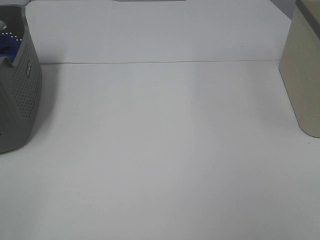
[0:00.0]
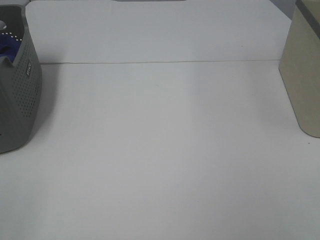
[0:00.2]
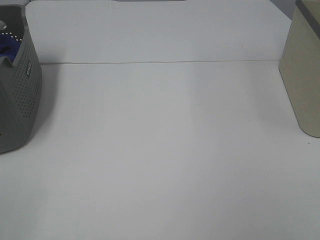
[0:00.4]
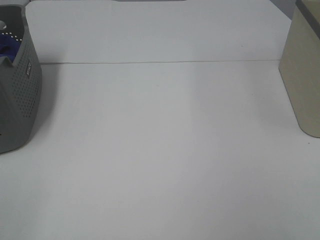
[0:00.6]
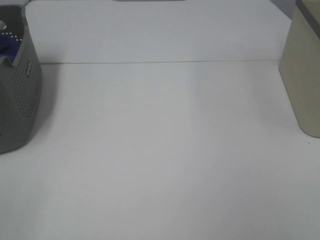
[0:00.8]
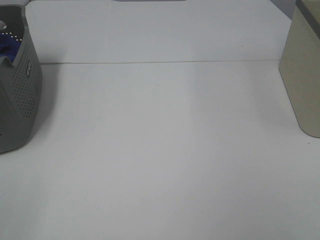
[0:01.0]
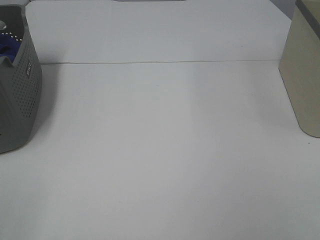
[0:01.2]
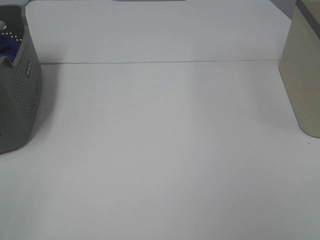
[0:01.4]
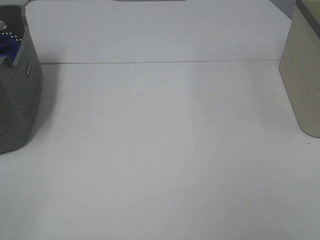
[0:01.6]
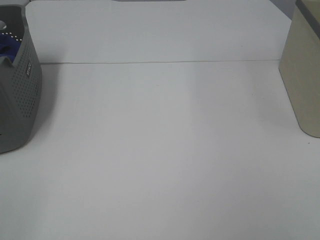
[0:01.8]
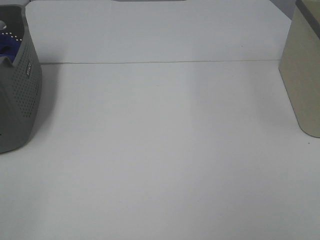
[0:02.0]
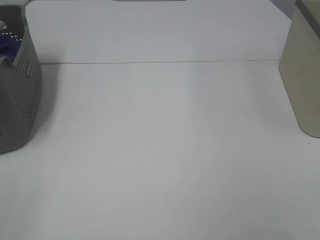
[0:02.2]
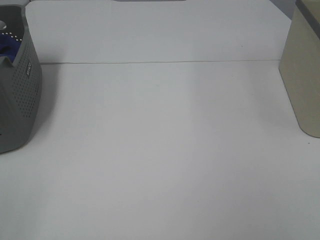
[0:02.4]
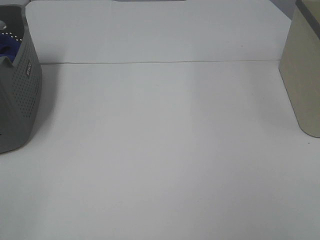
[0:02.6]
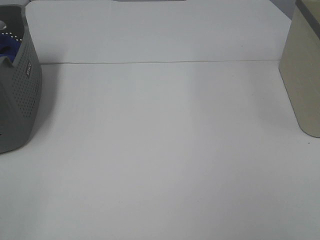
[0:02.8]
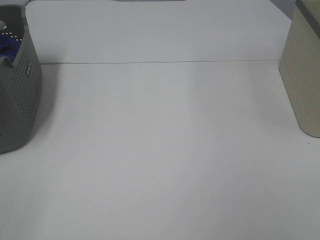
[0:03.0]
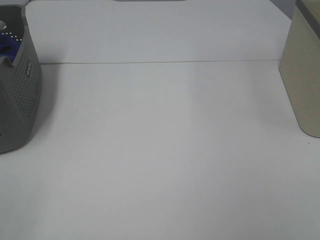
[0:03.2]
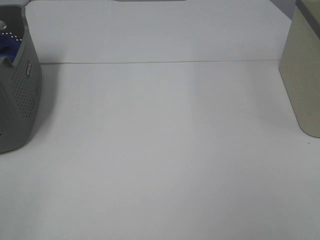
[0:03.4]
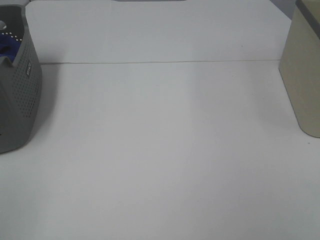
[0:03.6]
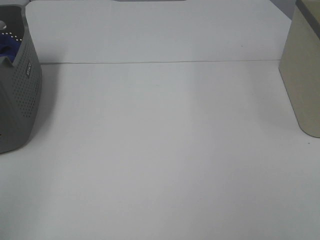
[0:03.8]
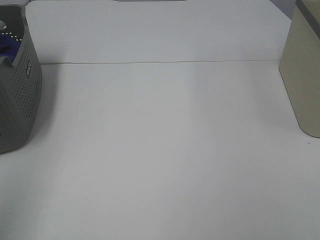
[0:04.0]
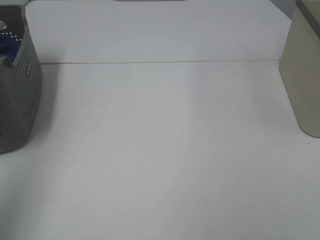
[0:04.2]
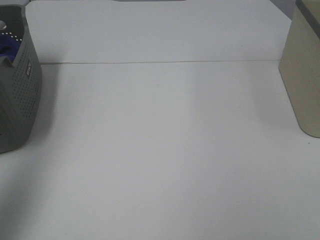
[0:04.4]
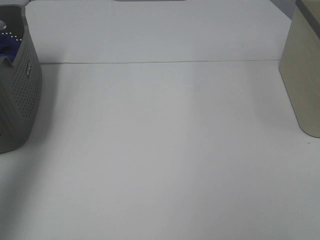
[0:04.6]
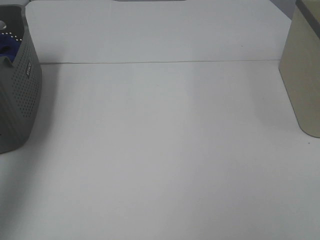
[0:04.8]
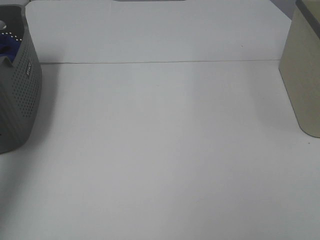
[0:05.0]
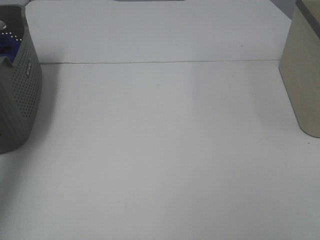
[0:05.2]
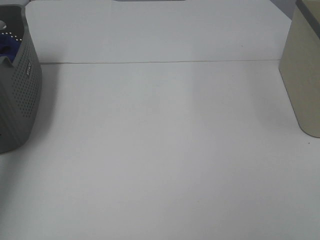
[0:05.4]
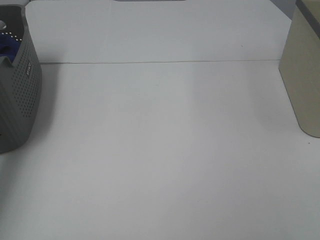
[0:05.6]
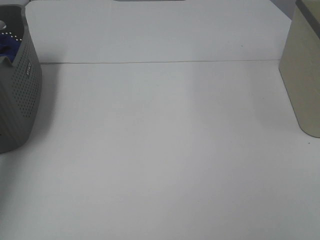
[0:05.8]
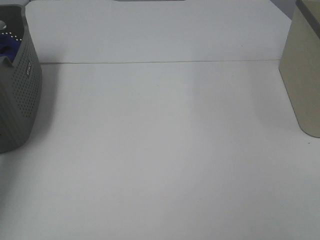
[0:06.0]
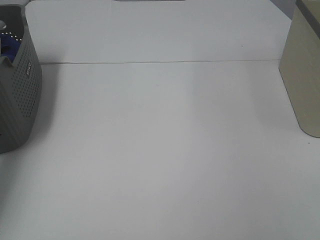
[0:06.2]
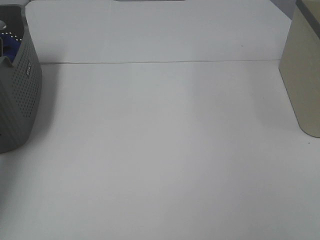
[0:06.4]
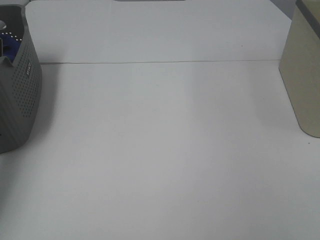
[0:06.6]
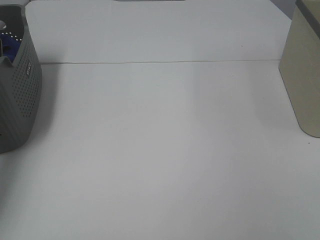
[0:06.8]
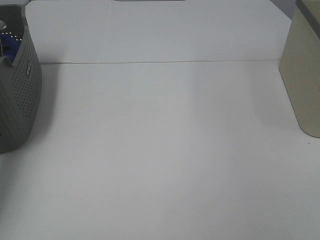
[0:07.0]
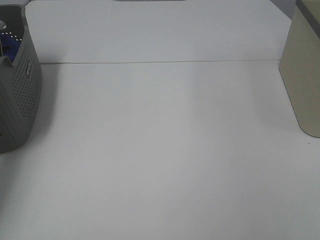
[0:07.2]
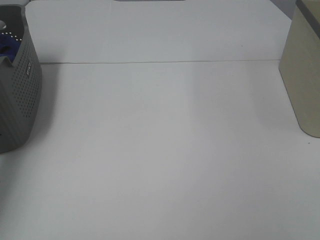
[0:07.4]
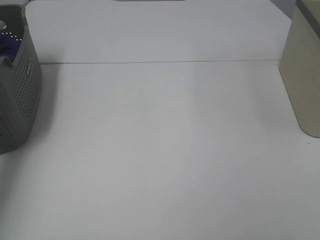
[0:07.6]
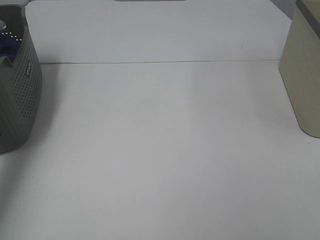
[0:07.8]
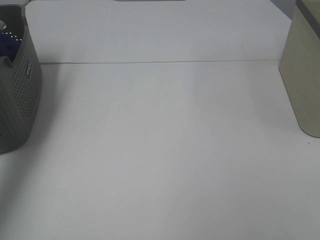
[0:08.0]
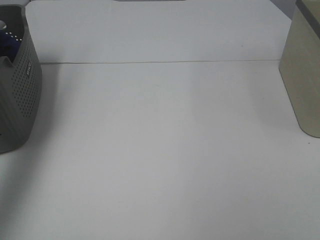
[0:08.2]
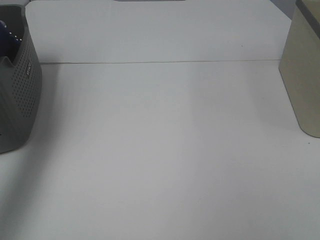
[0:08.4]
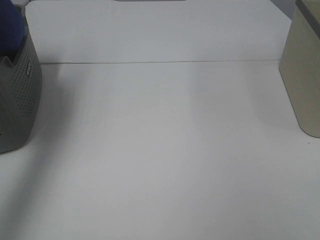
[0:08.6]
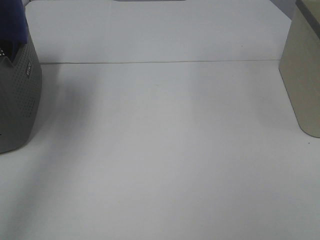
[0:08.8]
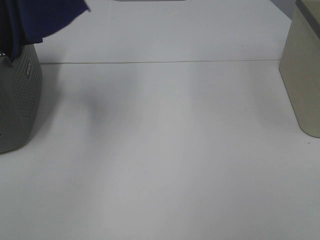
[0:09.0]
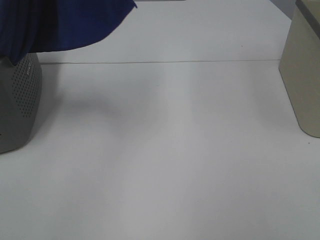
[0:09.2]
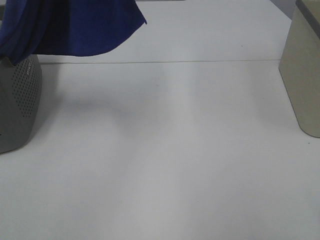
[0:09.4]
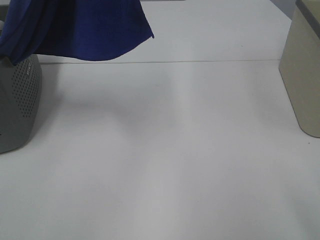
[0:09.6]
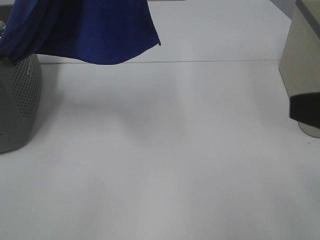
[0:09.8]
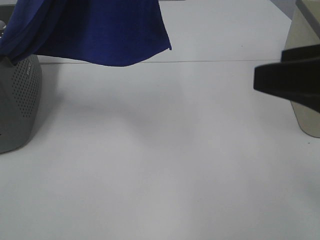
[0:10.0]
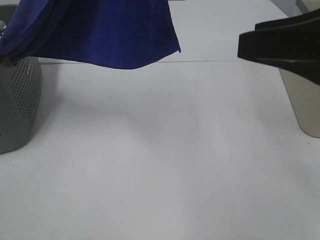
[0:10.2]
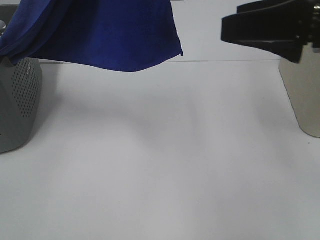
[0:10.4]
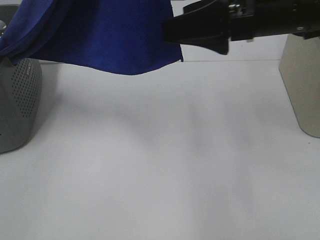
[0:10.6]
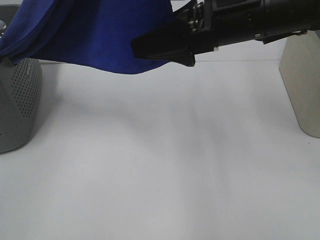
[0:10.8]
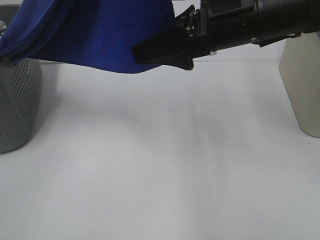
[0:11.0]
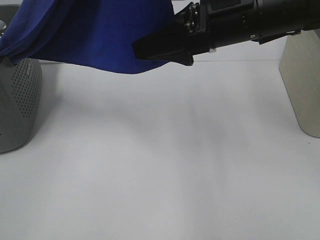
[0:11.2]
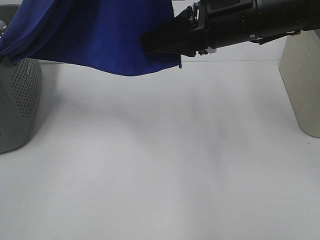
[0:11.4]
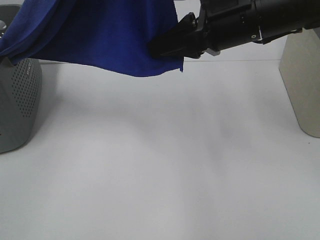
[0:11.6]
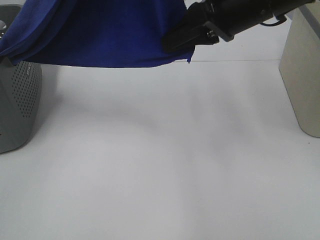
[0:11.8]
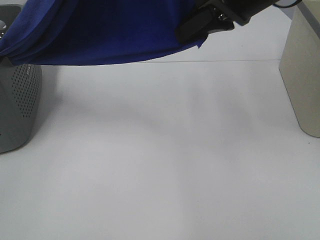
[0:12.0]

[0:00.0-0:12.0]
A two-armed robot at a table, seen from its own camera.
Task of the whole recording: Remove the towel and place it.
Step, 0:08.4 to 0:11.8: Right hand: grab a corner of the blue towel and straighten it.
0:00.0 to 0:03.0: Both grippers stay about where they are.
0:03.0 to 0:04.4: The left gripper travels forward and upward by approximately 25 cm.
0:04.4 to 0:06.0: The left gripper goes some 35 cm forward and downward.
0:07.6 to 0:09.0: The left gripper travels upward, to the right and backward by roughly 35 cm.
0:09.0 to 0:10.4: The left gripper heads to the right, covering about 10 cm. The right gripper moves forward, roughly 25 cm, and opens.
0:10.4 to 0:12.0: The right gripper is displaced forward and to the left by some 10 cm, and closes its fingers.

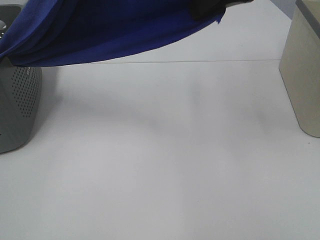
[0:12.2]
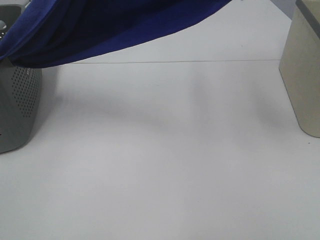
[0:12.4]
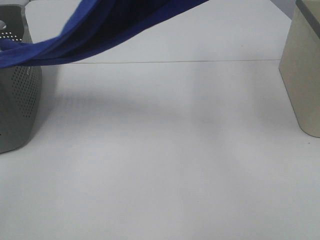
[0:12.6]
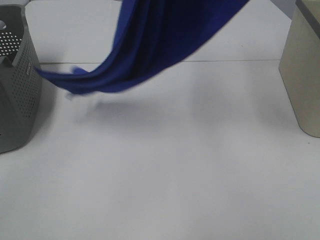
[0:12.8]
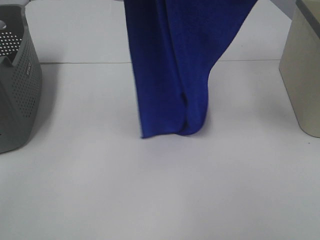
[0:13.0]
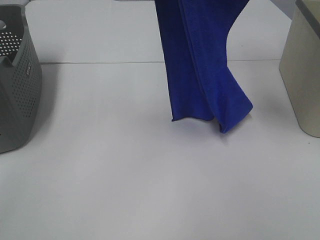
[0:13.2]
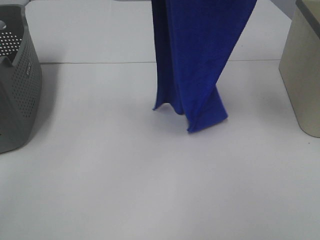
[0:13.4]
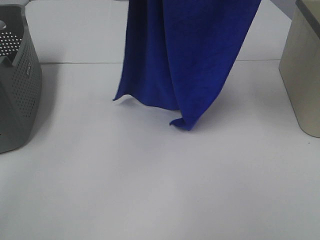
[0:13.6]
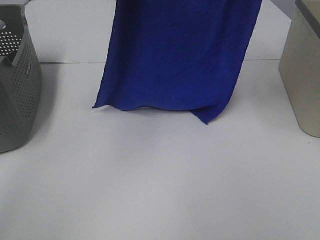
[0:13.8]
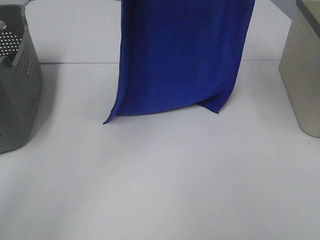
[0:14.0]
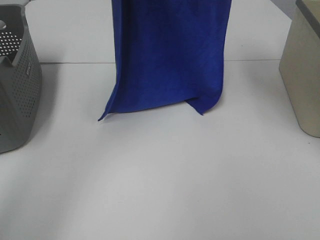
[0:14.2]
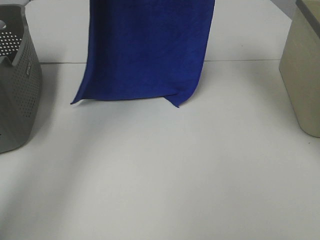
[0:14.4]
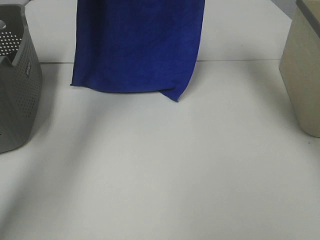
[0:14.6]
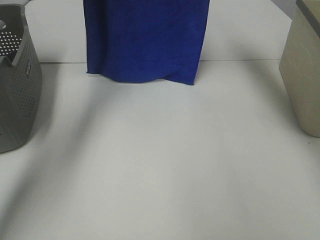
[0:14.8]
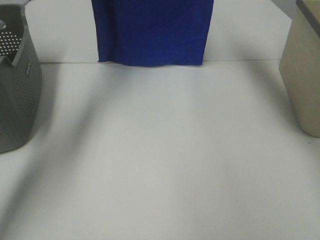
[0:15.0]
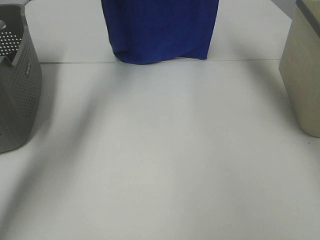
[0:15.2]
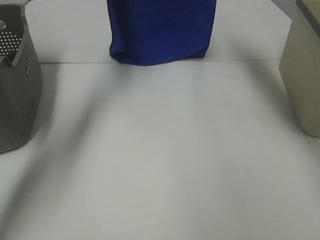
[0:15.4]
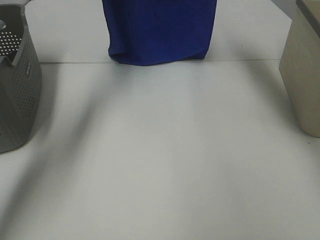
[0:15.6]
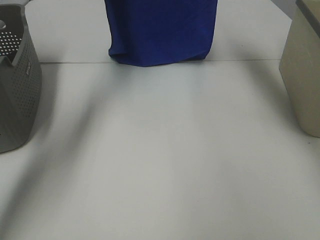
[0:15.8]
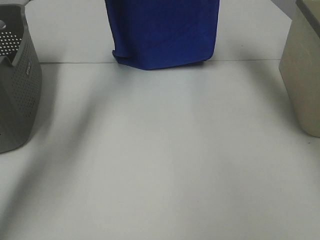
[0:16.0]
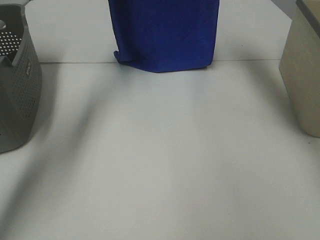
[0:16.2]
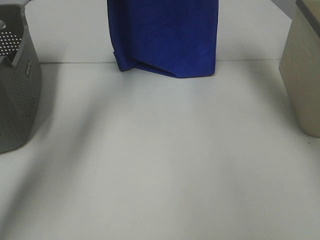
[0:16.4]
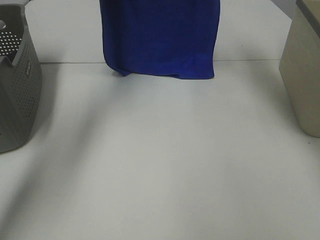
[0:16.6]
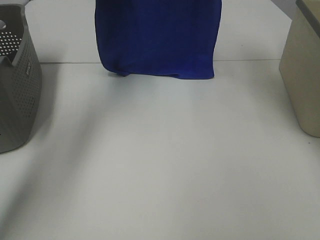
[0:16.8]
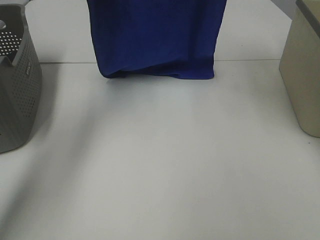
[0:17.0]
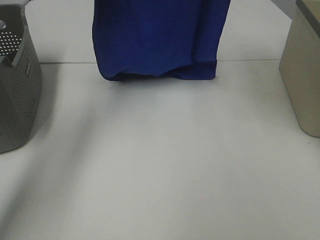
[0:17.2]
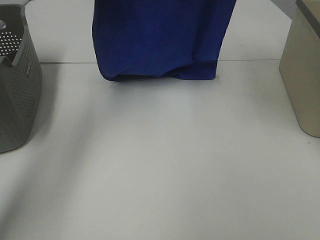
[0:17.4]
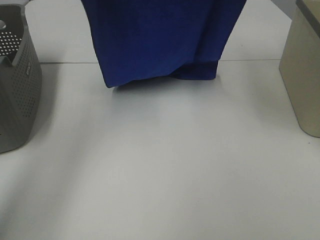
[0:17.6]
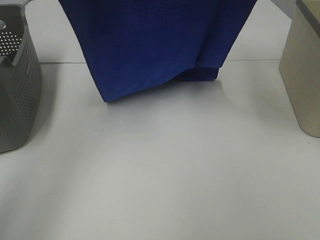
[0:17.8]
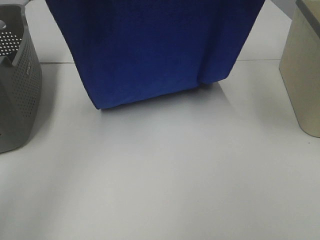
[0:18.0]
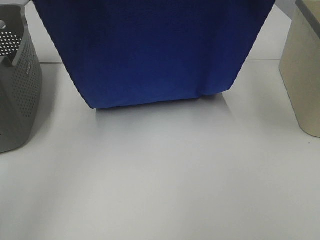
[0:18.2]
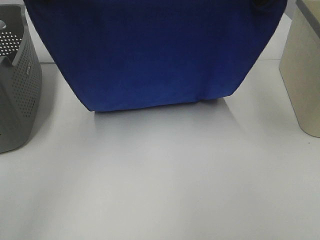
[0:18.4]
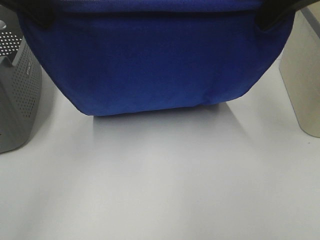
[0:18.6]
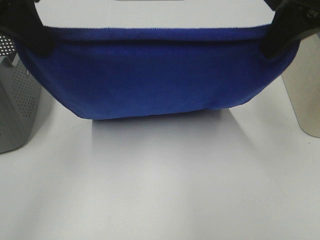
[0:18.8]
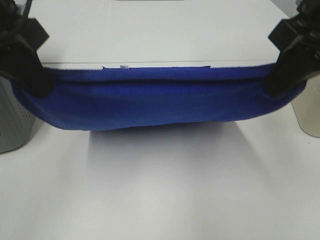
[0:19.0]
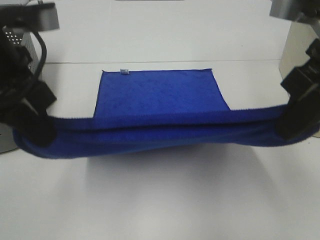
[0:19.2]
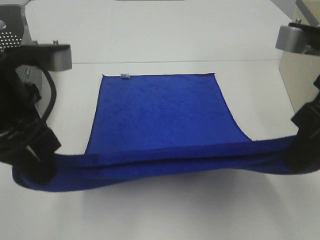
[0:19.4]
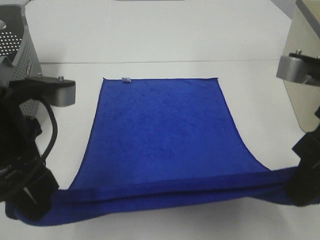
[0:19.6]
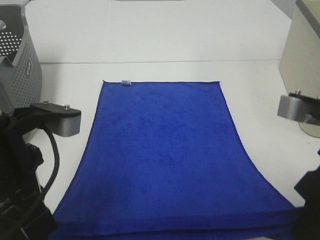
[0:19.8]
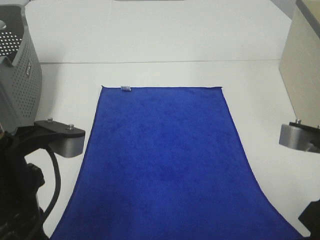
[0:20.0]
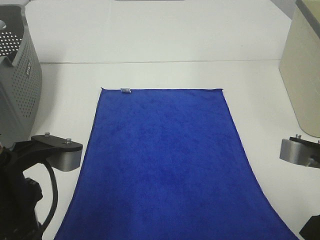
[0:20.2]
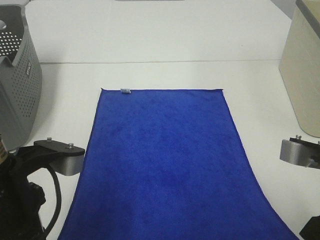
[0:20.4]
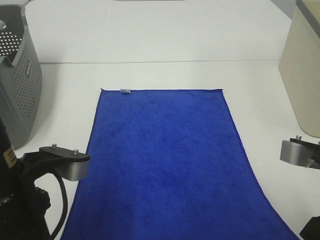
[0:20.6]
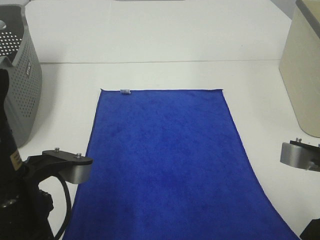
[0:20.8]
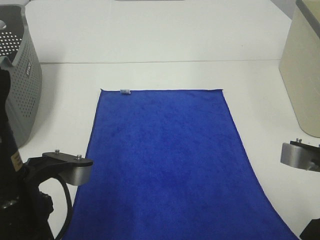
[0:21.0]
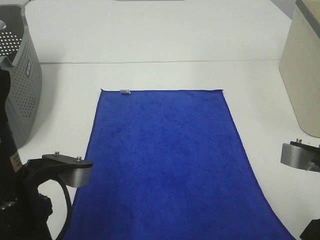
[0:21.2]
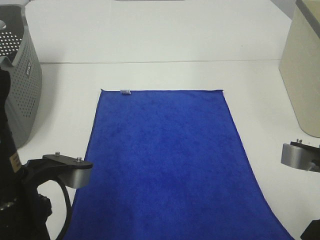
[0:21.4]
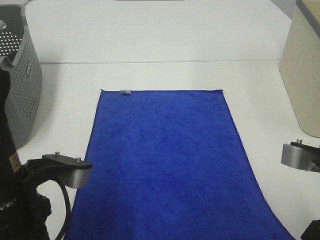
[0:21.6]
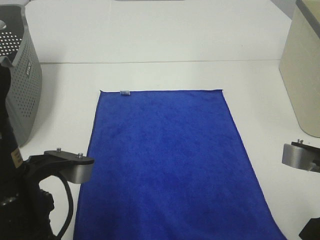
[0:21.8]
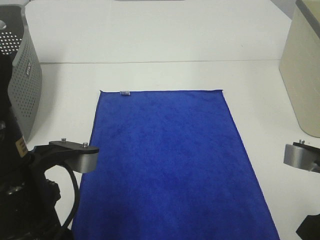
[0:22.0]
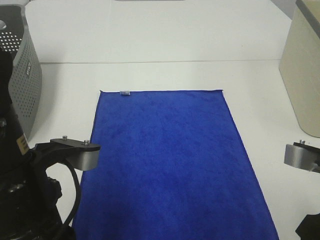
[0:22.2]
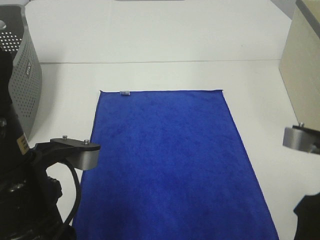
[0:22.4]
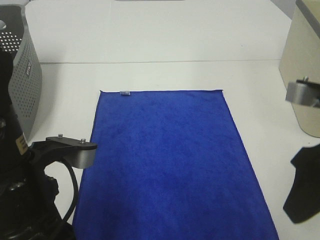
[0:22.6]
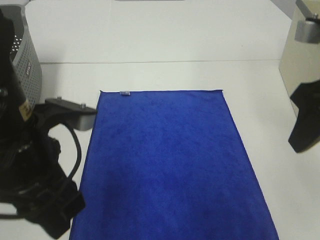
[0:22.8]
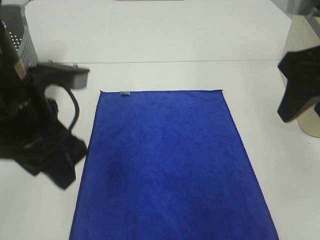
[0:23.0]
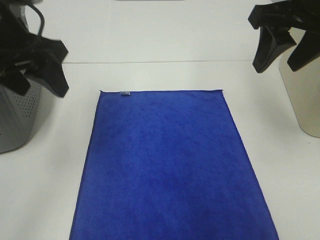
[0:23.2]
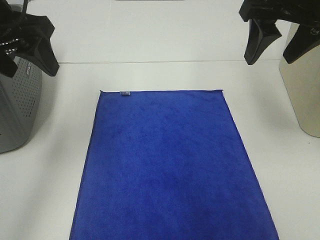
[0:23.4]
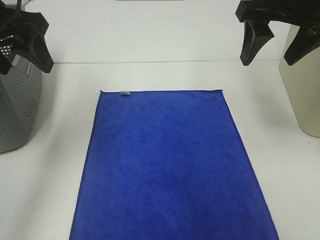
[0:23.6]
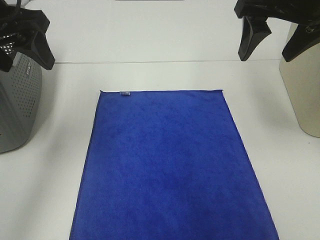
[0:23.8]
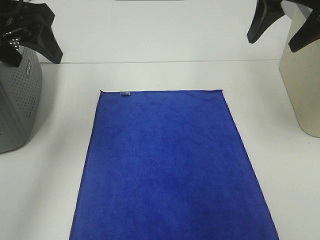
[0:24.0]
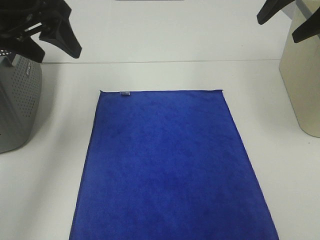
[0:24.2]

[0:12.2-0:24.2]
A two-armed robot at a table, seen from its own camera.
Task of the whole recording: Remove the towel and place it.
Step, 0:12.2 to 0:17.6: Left hand: spread the blue towel flat on the table.
Step, 0:12.2 to 0:17.6: Right hand: spread the blue towel flat on the table.
0:12.2 to 0:13.8: The left gripper goes approximately 10 cm forward; the right gripper shifts approximately 15 cm upward.
0:13.8 to 0:15.2: The right gripper moves forward, about 15 cm. The left gripper heads forward and to the left, covering roughly 20 cm.
0:16.6 to 0:18.2: Both grippers travel together backward, some 15 cm.
0:18.2 to 0:19.8: The grippers both shift downward and backward by some 25 cm.
0:19.8 to 0:21.2: There are only small adjustments of the grippers.
0:21.2 to 0:22.6: The right gripper heads upward, covering some 5 cm, and opens; the left gripper opens.
0:22.6 to 0:24.2: The grippers both shift forward and upward by about 20 cm.
